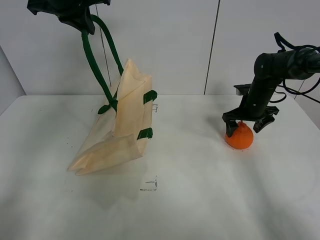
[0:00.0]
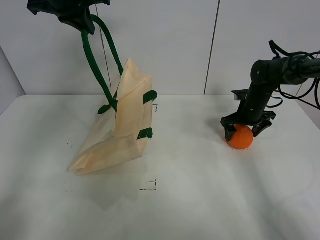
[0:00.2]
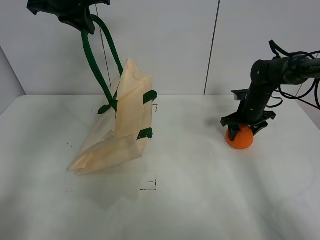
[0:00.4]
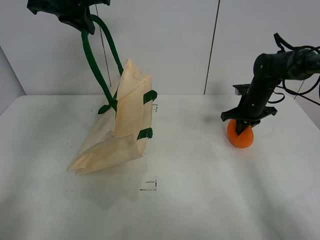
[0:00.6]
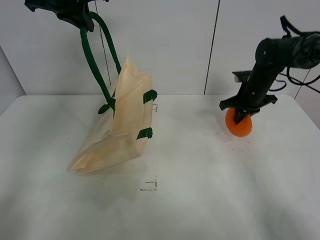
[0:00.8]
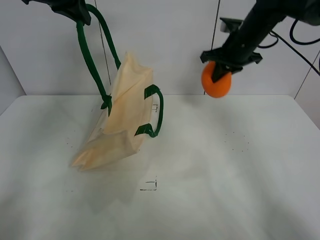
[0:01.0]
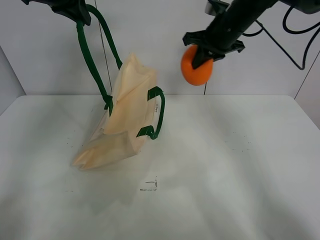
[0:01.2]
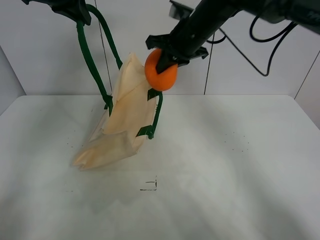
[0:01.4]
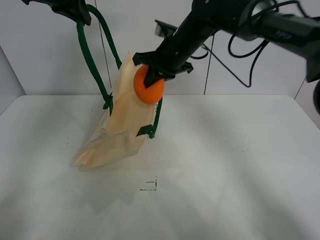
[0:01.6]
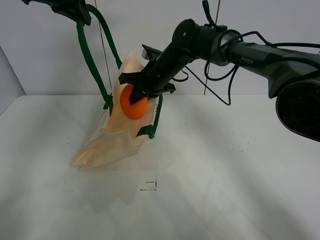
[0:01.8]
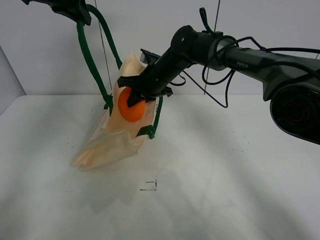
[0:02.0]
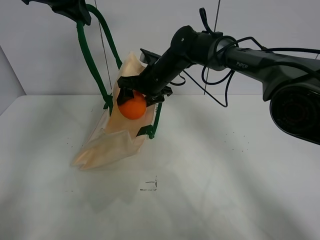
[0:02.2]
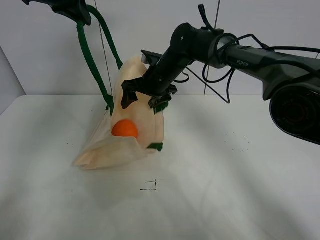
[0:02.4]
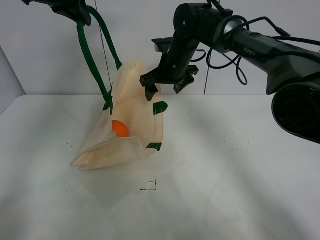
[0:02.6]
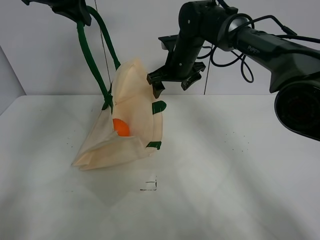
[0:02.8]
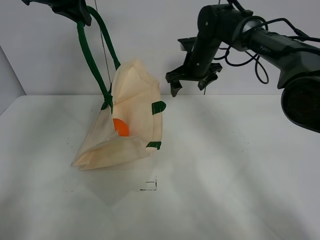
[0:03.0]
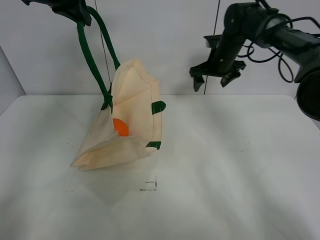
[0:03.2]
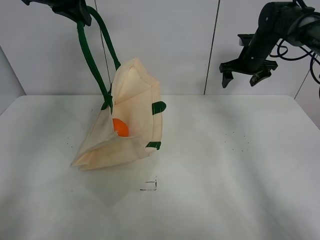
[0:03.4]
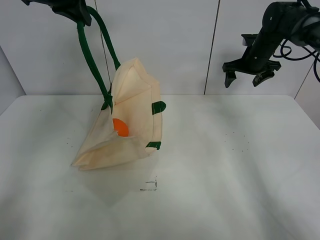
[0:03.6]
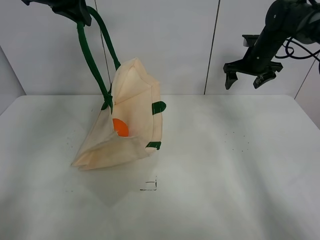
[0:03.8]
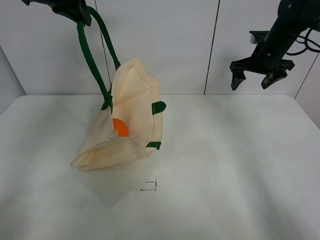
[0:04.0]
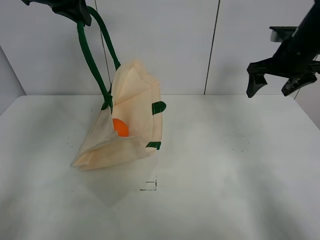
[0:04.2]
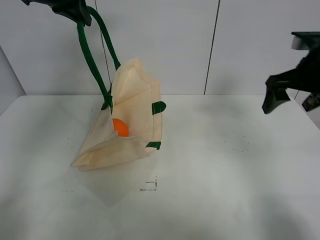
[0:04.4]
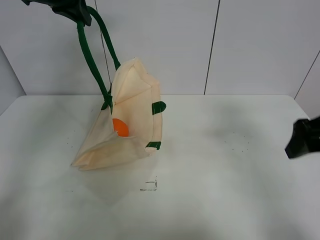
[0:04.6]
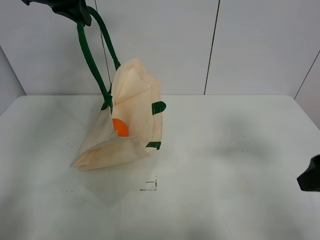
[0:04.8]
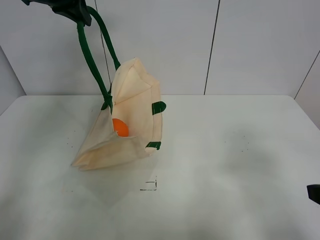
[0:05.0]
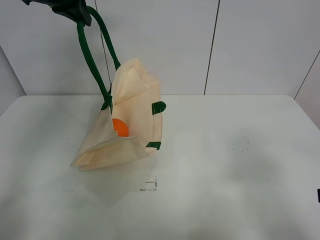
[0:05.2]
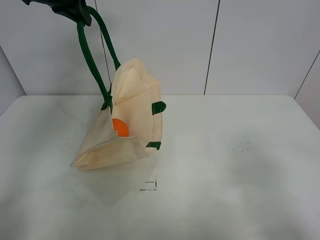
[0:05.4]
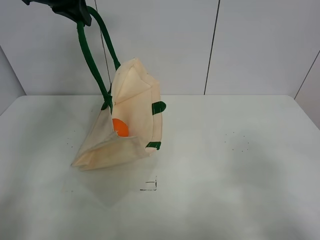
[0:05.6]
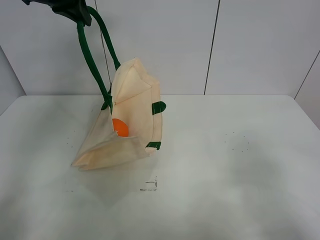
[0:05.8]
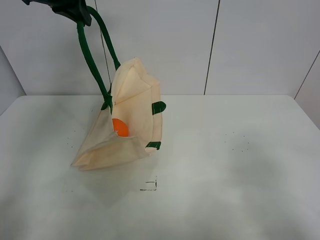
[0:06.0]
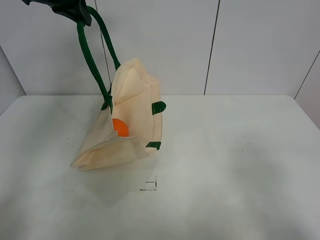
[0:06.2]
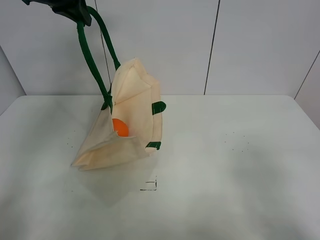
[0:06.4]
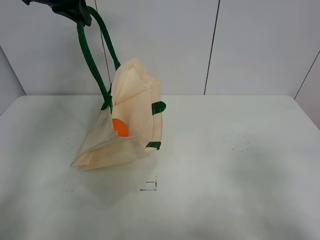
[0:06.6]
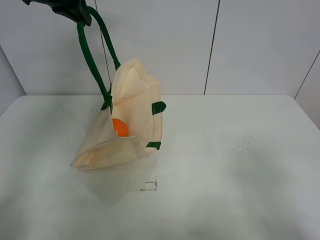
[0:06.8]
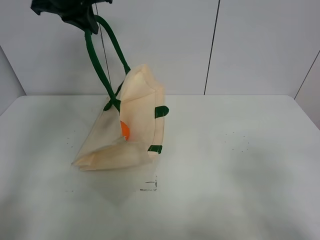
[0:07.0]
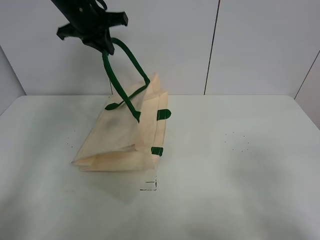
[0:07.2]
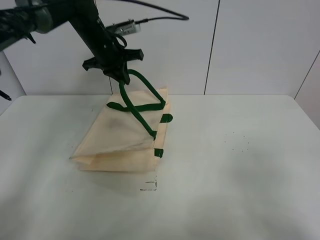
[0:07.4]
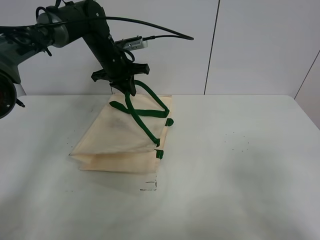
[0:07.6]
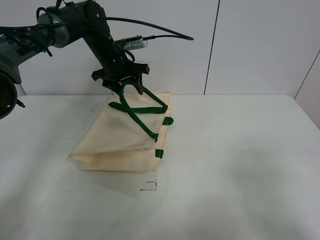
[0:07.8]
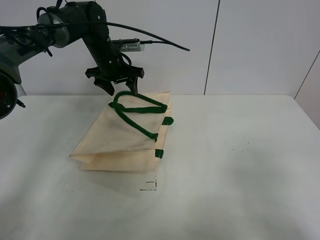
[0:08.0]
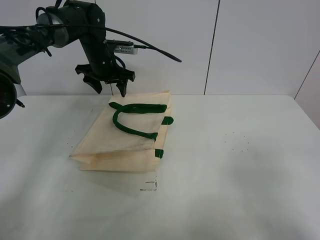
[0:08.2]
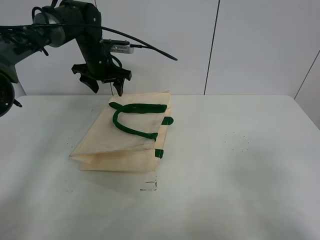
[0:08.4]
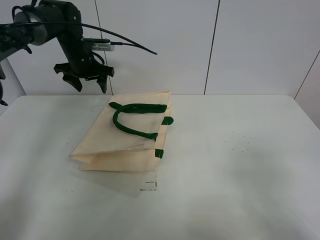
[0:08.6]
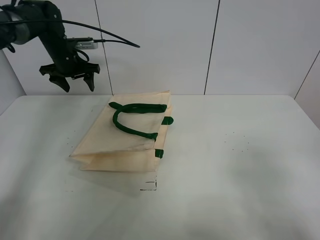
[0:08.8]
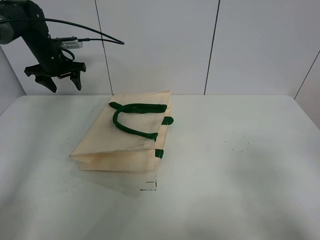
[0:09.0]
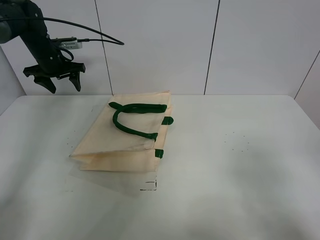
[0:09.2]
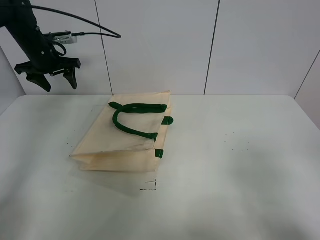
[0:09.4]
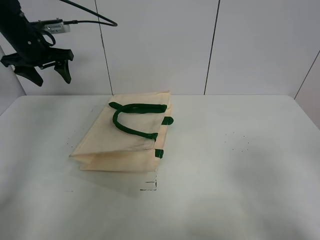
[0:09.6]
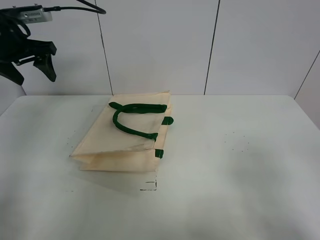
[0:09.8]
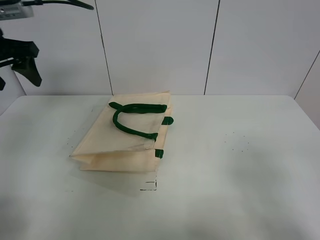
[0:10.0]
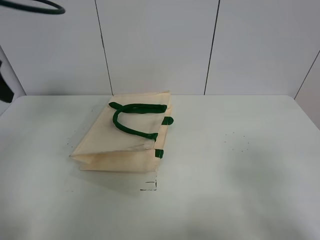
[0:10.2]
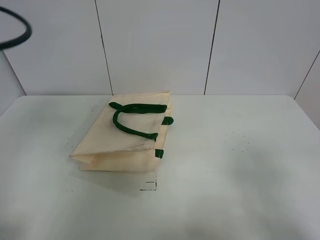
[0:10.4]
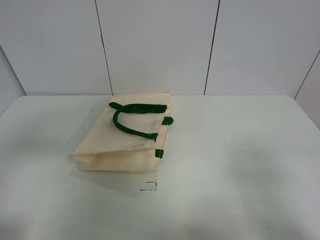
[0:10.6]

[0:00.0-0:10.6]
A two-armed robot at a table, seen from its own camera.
Task of the whole recording: open the white linen bag and put the orange in the bag.
Step, 0:00.8 to 0:02.4: Place the orange in the handbag with right gripper.
Step, 0:02.6 to 0:08.0: Put down the handbag with left gripper.
0:00.0 to 0:01.6: The right gripper goes about 25 cm to the left and upward, and closes.
0:01.6 to 0:03.0: The right gripper moves to the right and forward, approximately 10 cm, and opens up.
0:03.0 to 0:04.6: The right gripper goes approximately 35 cm backward and to the right.
0:04.6 to 0:06.0: The right gripper travels backward by about 15 cm.
0:06.0 to 0:07.6: The left gripper travels downward and forward by roughly 20 cm.
0:07.6 to 0:09.0: The left gripper shifts about 20 cm to the left, and opens up.
0:09.0 to 0:10.6: The left gripper heads backward, covering roughly 40 cm.
